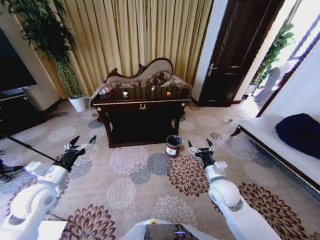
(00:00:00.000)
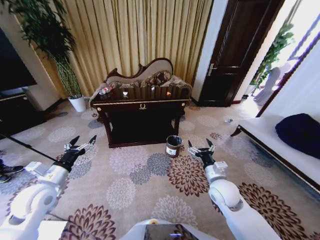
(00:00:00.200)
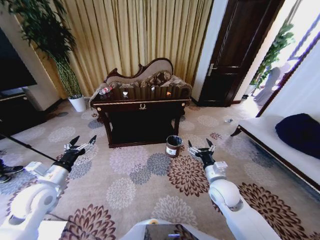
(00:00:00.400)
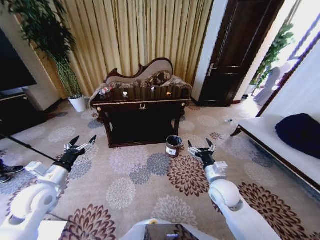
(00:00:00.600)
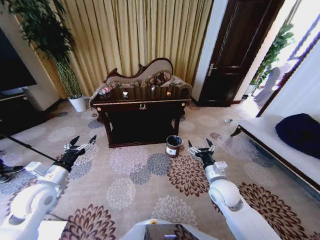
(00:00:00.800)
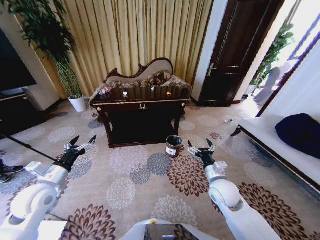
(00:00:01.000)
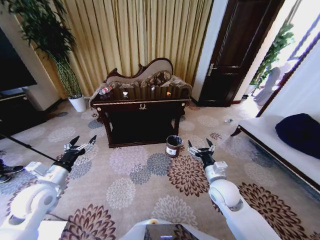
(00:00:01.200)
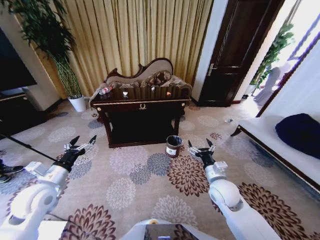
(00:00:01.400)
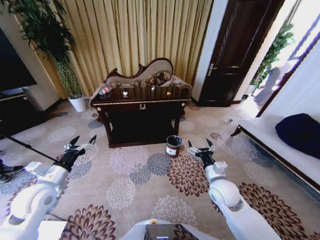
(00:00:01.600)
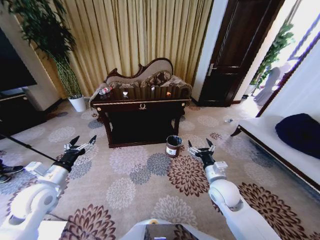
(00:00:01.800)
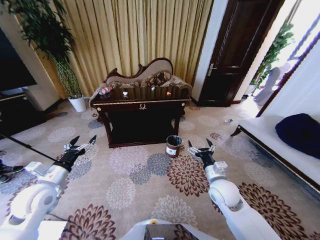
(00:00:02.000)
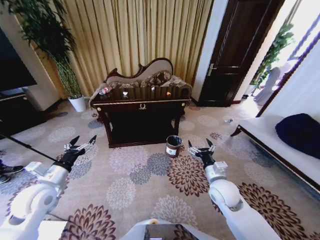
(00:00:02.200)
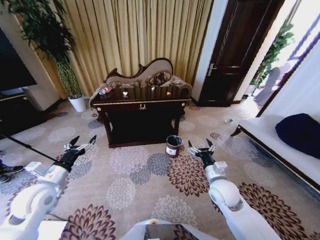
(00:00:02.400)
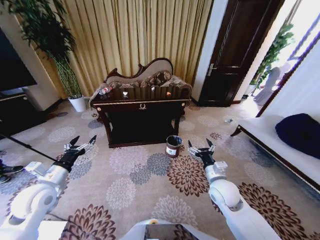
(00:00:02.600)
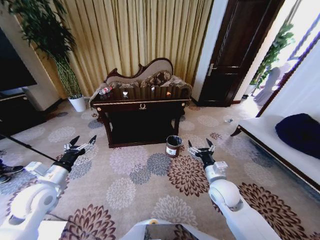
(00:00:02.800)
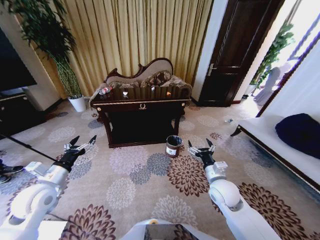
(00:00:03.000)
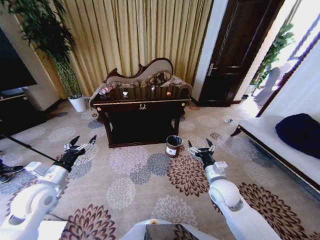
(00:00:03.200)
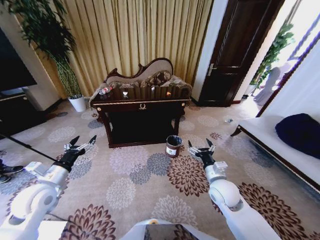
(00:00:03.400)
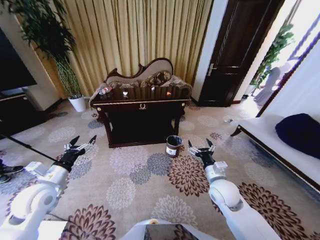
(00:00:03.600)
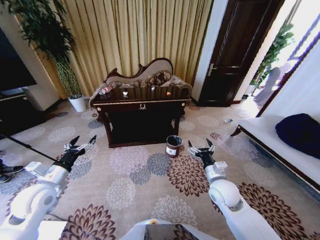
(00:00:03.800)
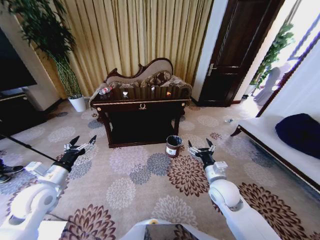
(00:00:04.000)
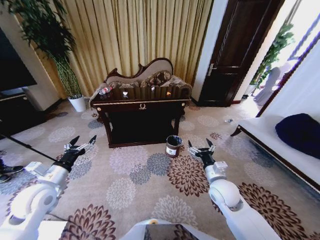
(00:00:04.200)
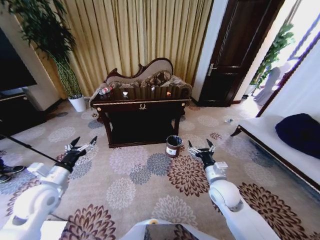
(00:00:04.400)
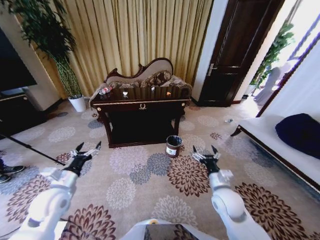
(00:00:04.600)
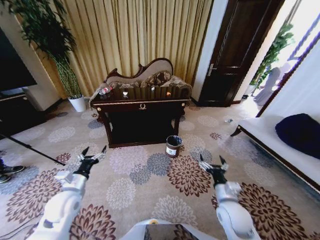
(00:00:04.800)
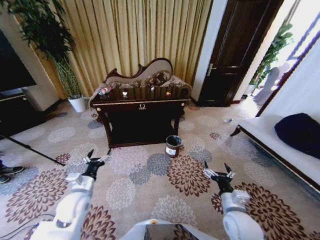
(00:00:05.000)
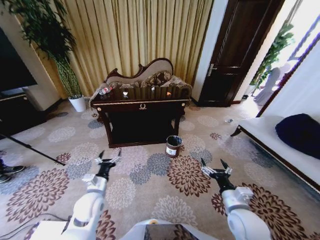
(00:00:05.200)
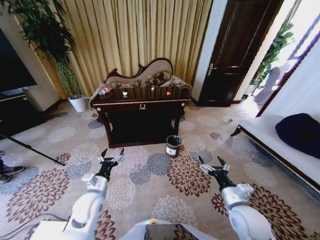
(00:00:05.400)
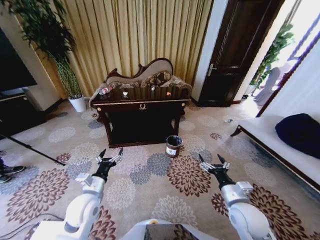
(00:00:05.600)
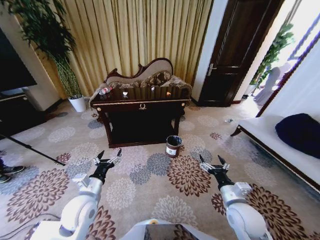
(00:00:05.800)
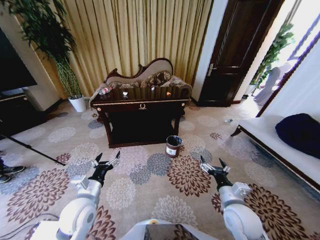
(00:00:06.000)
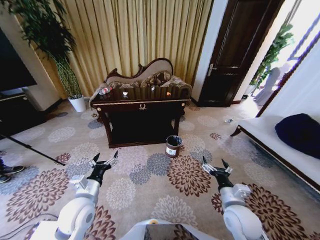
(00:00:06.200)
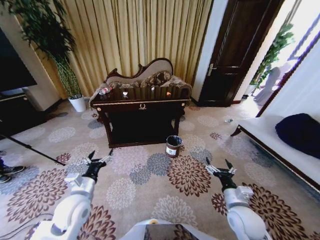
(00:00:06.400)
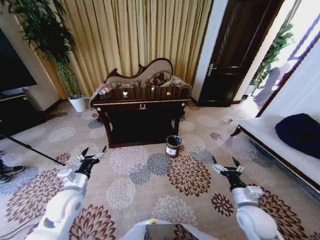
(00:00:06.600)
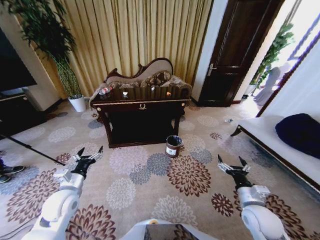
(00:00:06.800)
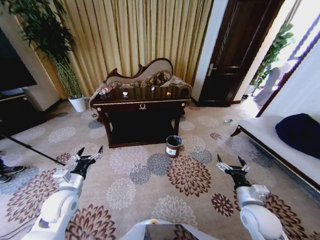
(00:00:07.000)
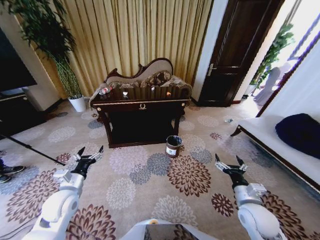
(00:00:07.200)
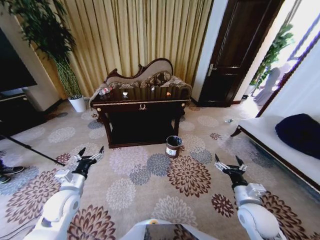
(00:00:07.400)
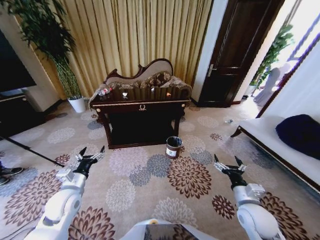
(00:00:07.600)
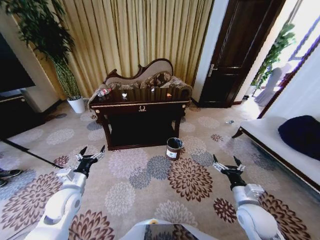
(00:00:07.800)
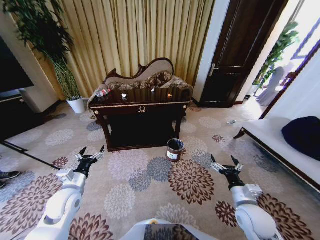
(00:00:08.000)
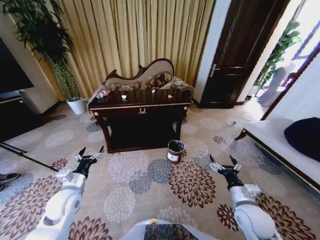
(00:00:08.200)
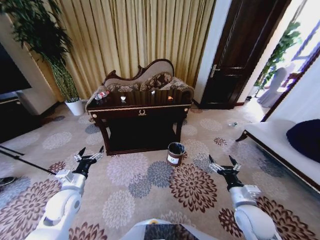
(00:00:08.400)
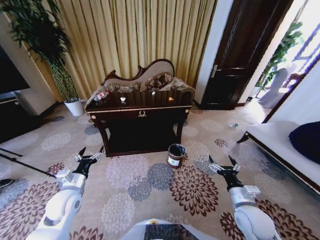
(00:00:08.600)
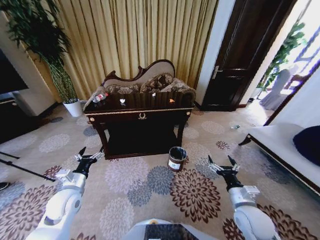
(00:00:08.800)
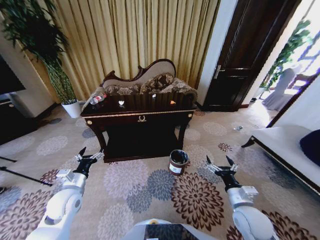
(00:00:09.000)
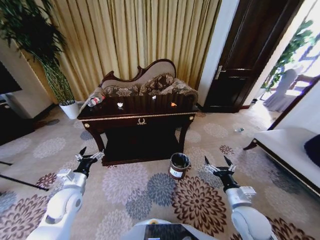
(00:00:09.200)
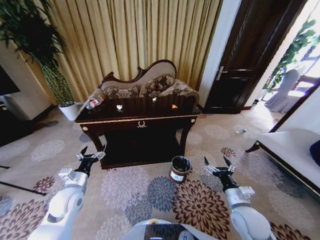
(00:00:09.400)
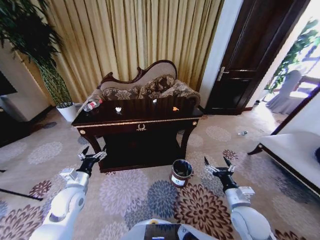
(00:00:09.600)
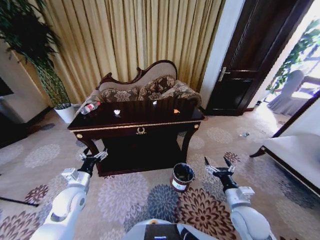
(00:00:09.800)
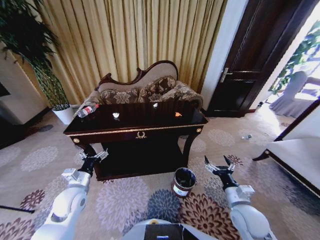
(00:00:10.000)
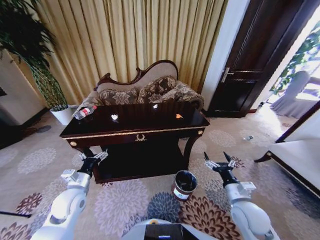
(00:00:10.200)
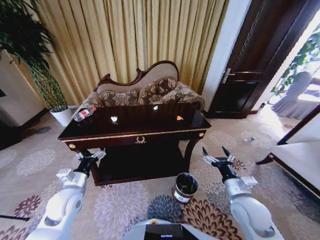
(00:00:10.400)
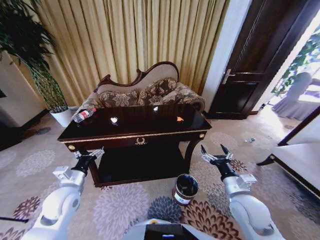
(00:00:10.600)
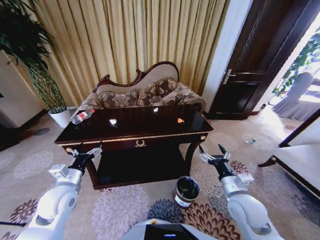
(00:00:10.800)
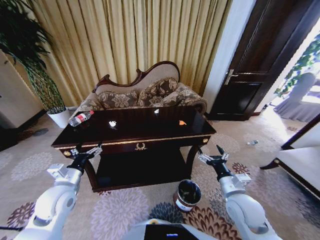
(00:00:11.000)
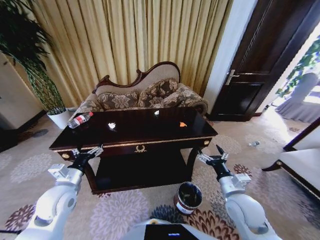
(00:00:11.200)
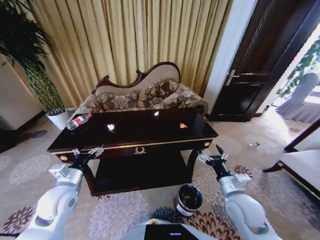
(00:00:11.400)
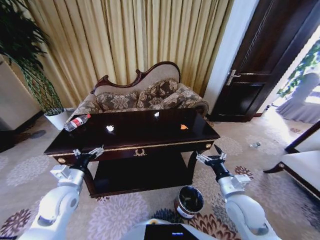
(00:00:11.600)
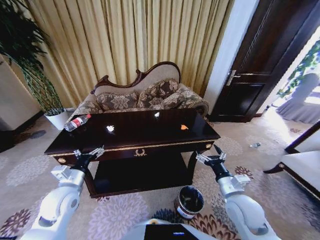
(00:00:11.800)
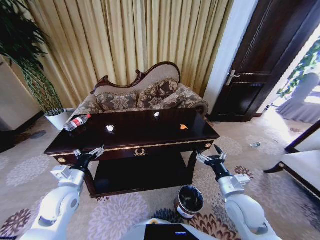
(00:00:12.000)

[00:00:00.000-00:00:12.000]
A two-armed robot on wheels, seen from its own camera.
Task of the whole recording: Move to the front of the table and place the trash on the table into the trash bin.
00:00:01.600 to 00:00:04.400: Both grippers stay put.
00:00:04.400 to 00:00:06.000: The right gripper heads backward, covering about 10 cm. Meanwhile the left gripper travels to the right by some 15 cm.
00:00:06.000 to 00:00:07.600: The right gripper goes about 5 cm to the right, while the left gripper is displaced to the left by about 10 cm.

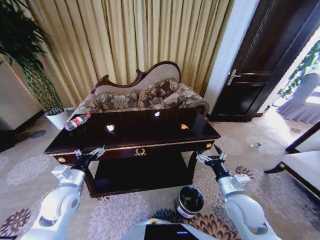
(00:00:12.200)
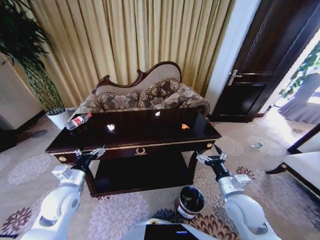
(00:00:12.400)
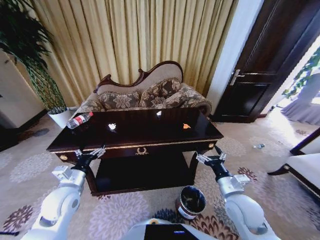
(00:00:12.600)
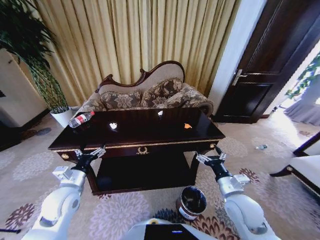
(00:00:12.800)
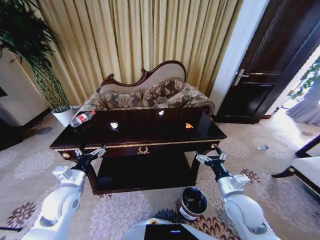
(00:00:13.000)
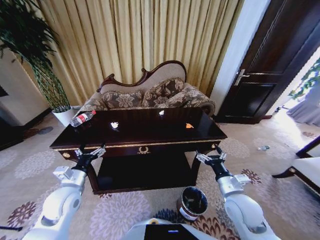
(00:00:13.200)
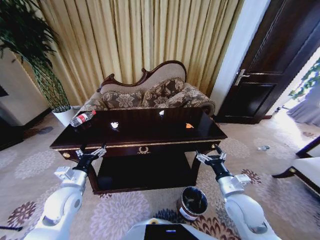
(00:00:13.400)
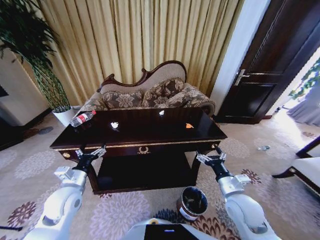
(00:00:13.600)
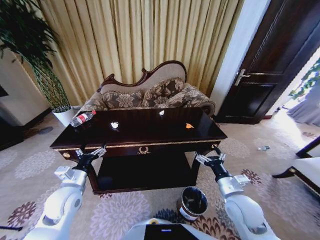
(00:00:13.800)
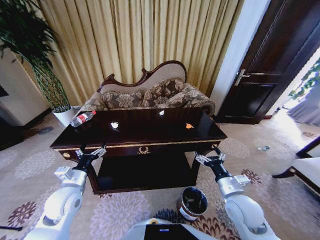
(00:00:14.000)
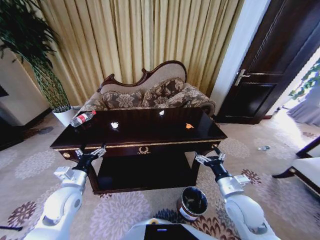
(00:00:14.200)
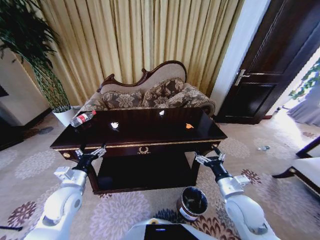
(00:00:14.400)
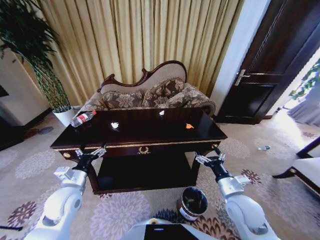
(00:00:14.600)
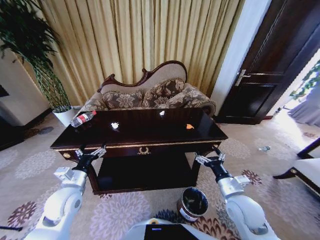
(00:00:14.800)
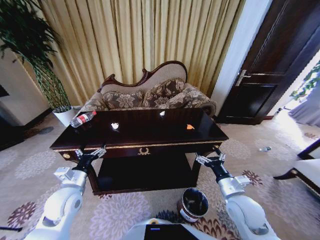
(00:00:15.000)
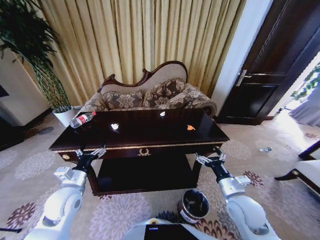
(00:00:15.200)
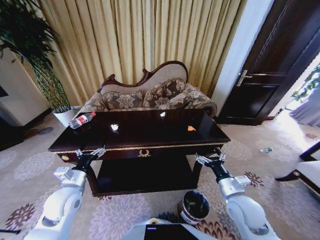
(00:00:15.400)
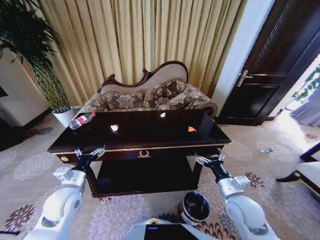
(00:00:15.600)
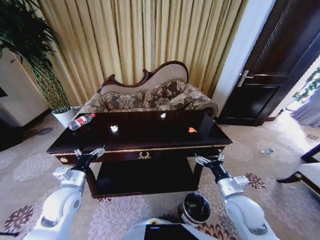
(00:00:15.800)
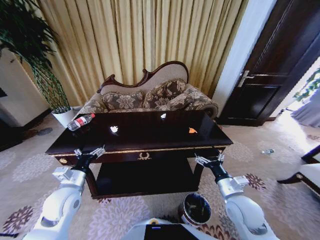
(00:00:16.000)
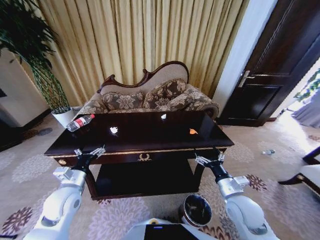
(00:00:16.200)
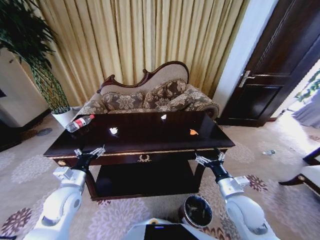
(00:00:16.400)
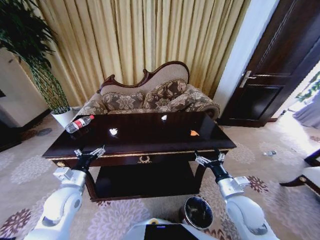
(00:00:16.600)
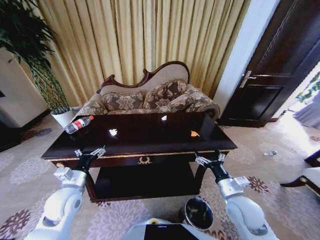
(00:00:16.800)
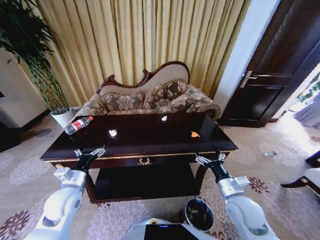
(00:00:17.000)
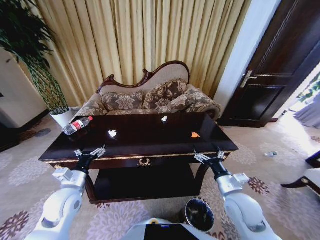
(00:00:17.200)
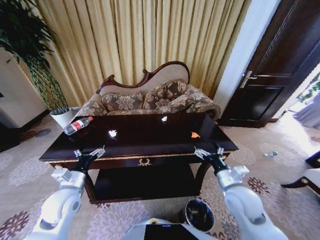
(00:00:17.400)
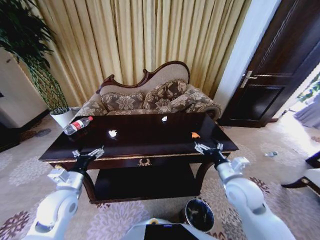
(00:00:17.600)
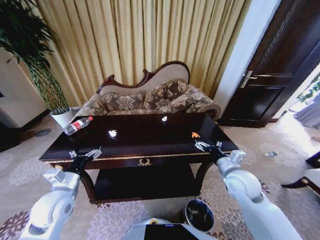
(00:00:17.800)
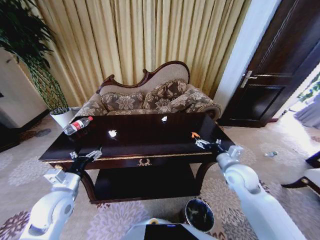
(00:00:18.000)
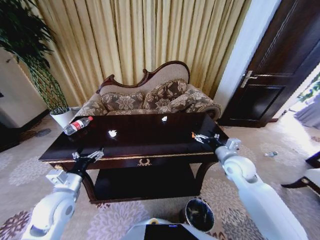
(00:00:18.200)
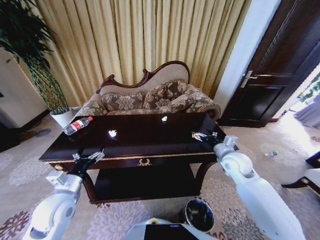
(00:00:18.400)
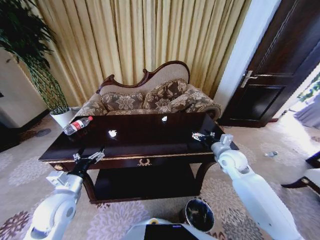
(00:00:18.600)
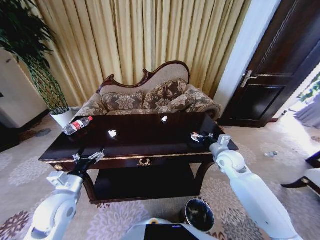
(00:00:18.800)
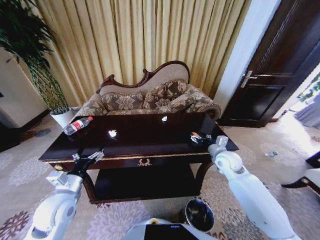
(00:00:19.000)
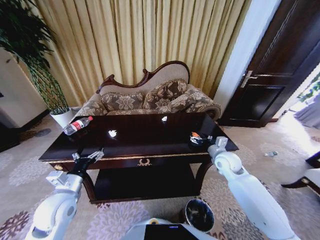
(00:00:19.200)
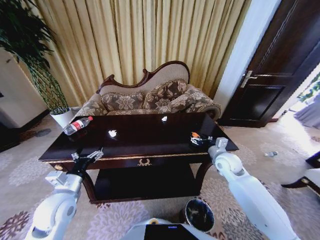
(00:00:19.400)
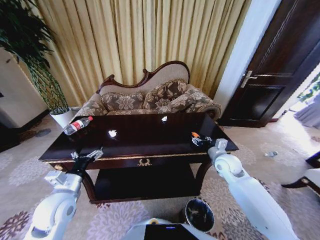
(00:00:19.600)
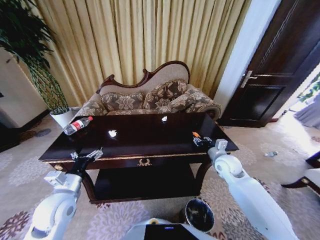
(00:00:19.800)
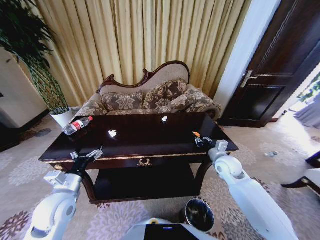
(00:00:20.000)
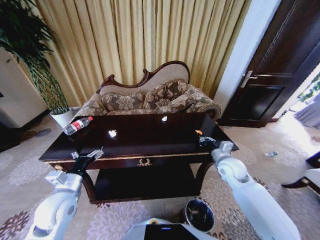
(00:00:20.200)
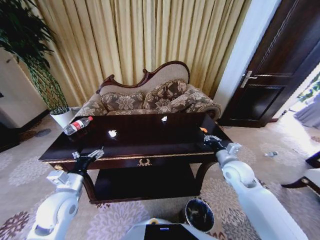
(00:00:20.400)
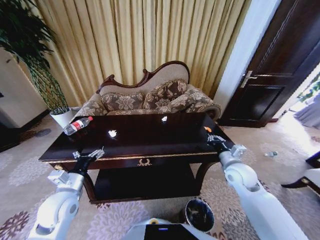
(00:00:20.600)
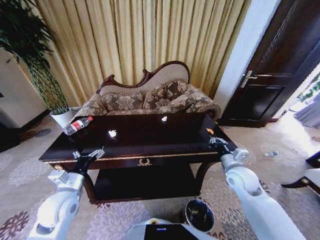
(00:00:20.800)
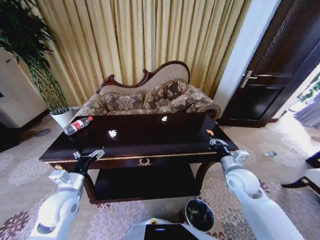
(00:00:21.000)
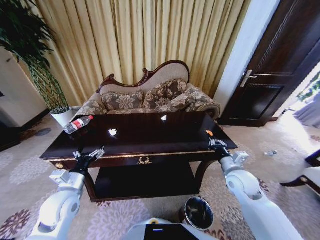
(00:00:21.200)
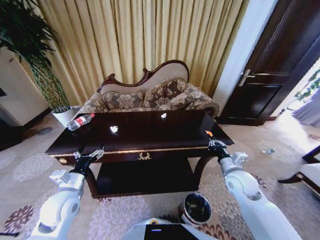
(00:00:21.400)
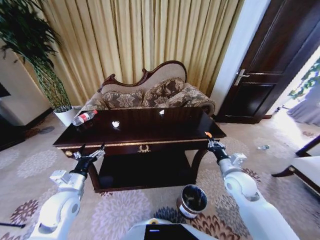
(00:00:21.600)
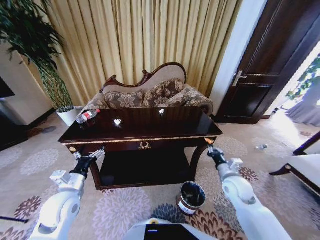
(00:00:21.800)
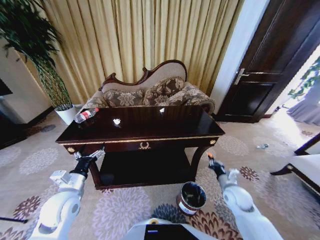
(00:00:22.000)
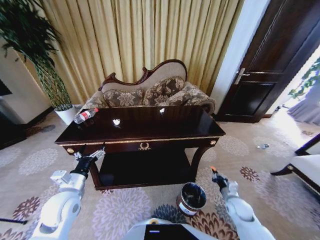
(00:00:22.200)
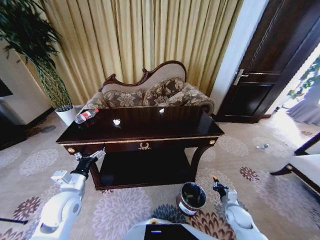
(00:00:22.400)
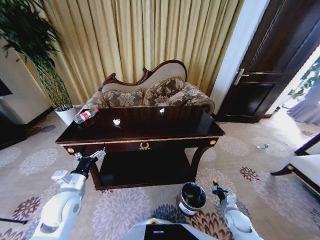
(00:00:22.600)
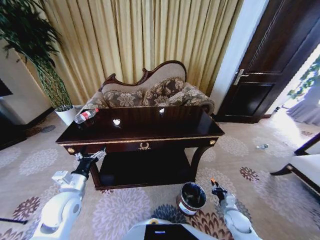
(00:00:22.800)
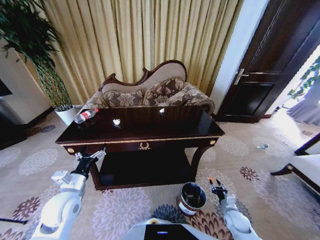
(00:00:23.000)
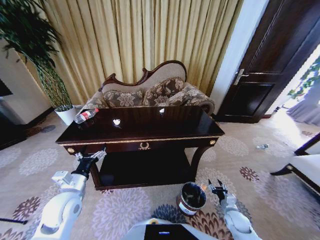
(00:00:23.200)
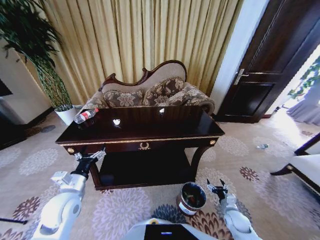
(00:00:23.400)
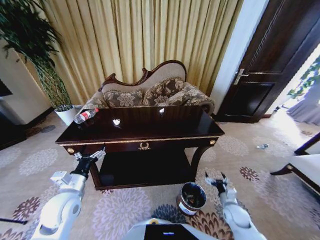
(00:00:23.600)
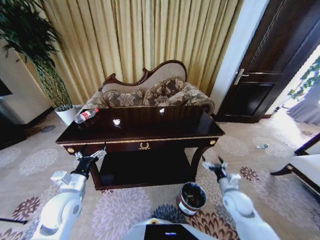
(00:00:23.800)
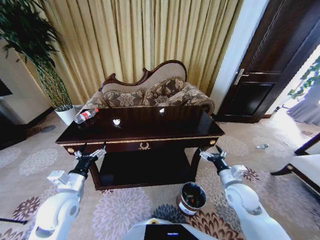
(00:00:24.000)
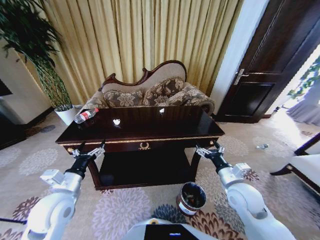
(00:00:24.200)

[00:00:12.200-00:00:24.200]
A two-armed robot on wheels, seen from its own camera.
Task of the whole recording: Move to the front of the table and place the trash on the table into the trash bin.
00:00:13.800 to 00:00:15.200: Neither gripper changes place.
00:00:16.600 to 00:00:18.200: The right gripper travels forward and upward by some 15 cm.
00:00:18.200 to 00:00:19.800: The right gripper changes place by some 5 cm, and closes up.
00:00:19.800 to 00:00:21.200: The right gripper heads backward, covering some 10 cm, and closes its fingers.
00:00:21.200 to 00:00:22.600: The right gripper travels downward by about 25 cm.
00:00:22.600 to 00:00:24.200: The right gripper moves upward, approximately 25 cm, and opens up.
